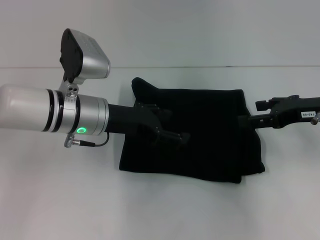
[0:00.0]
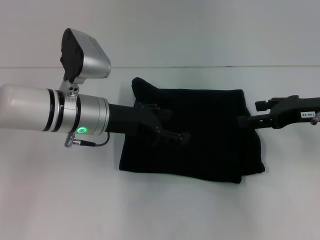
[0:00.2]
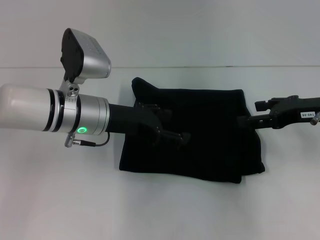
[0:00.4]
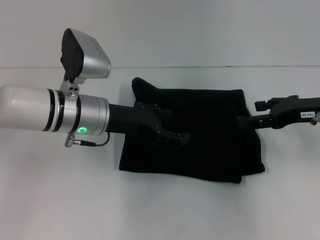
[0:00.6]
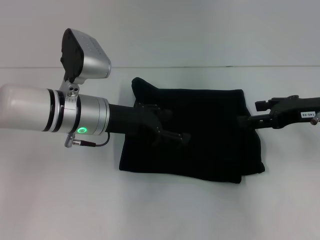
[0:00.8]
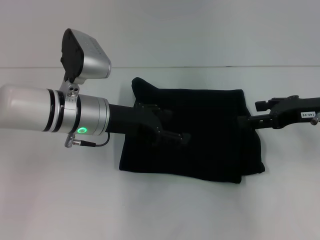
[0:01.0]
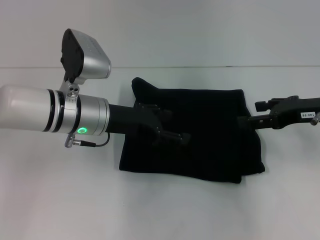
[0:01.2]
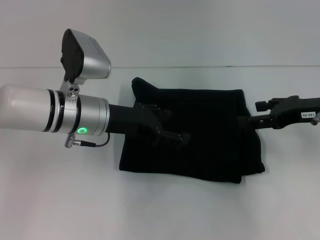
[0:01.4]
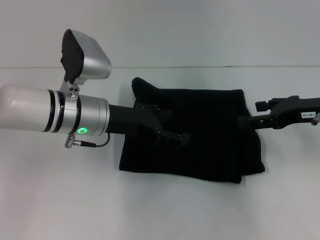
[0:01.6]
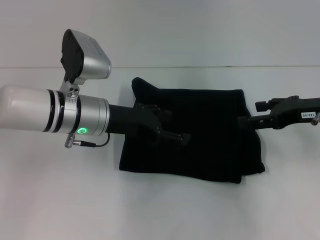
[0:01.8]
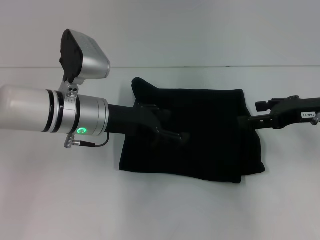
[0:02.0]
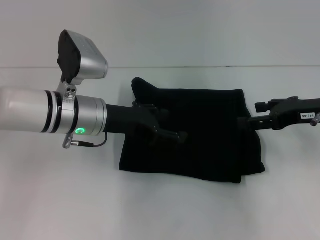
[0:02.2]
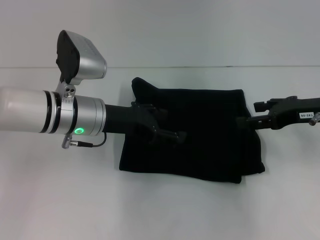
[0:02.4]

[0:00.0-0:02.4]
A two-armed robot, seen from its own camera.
0:00.0 to 0:02.4: Both grippers stay put.

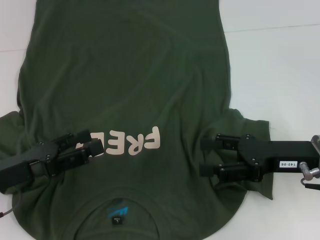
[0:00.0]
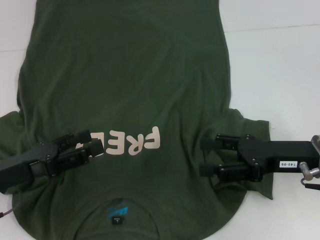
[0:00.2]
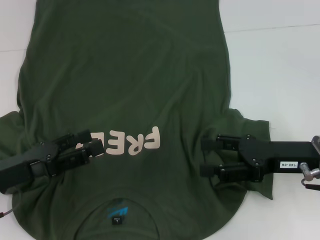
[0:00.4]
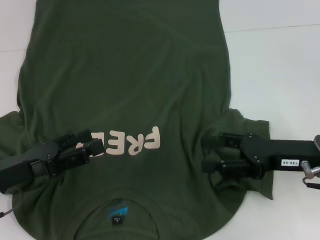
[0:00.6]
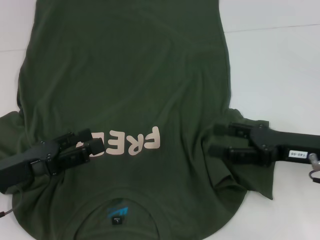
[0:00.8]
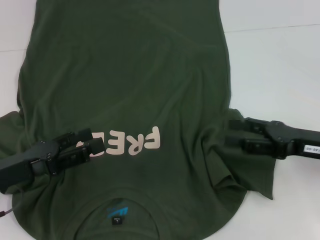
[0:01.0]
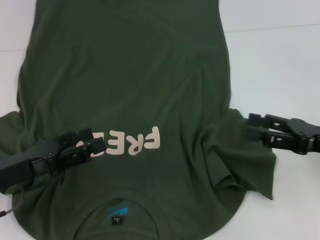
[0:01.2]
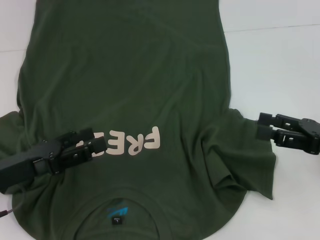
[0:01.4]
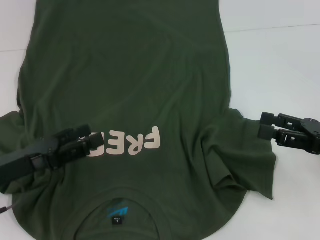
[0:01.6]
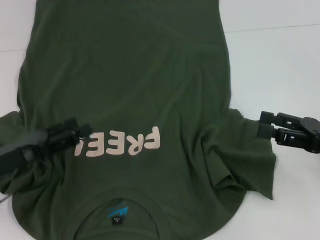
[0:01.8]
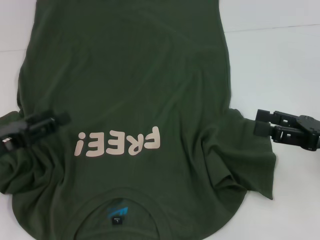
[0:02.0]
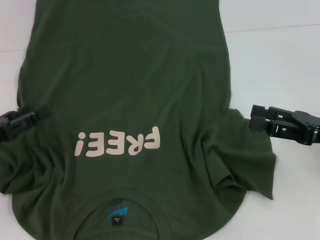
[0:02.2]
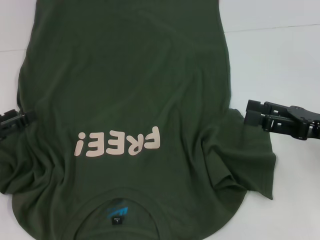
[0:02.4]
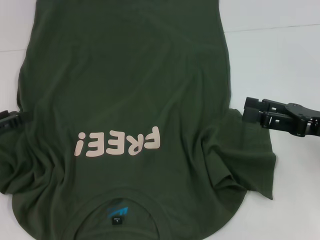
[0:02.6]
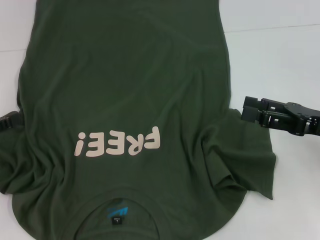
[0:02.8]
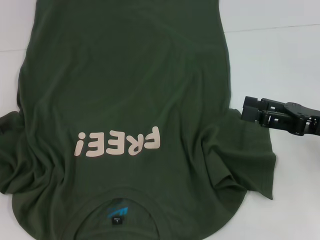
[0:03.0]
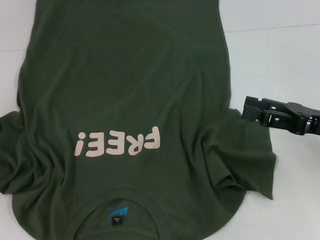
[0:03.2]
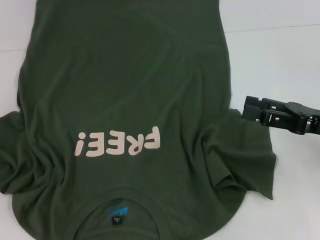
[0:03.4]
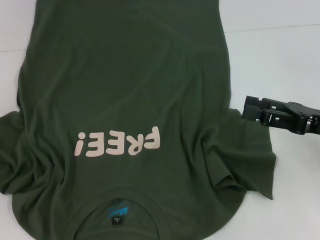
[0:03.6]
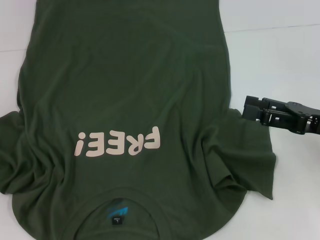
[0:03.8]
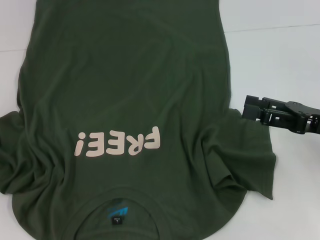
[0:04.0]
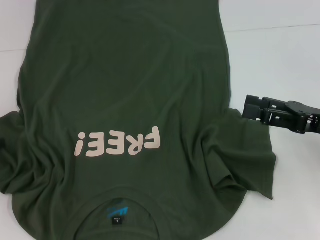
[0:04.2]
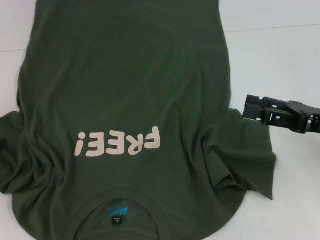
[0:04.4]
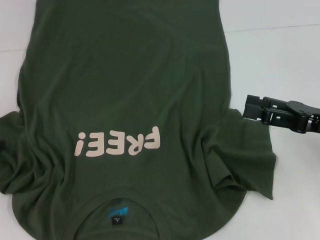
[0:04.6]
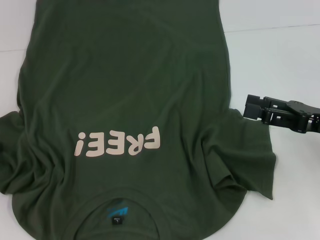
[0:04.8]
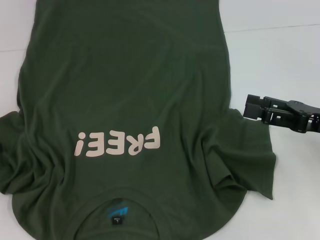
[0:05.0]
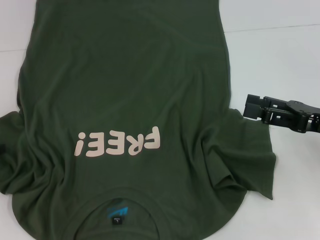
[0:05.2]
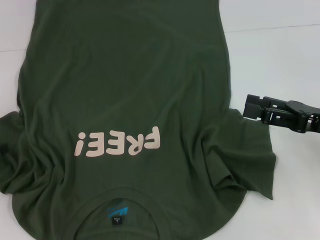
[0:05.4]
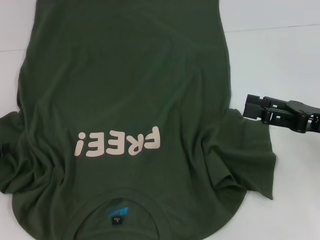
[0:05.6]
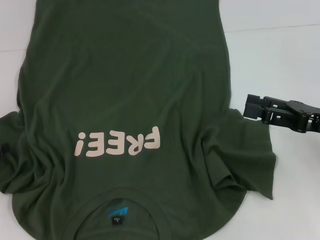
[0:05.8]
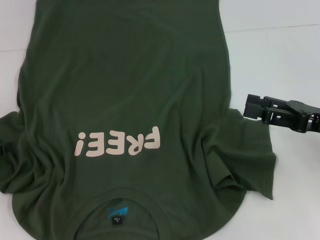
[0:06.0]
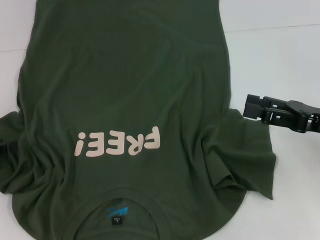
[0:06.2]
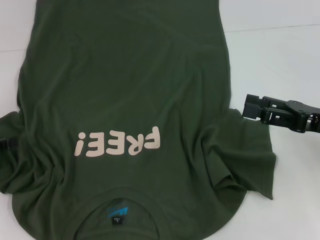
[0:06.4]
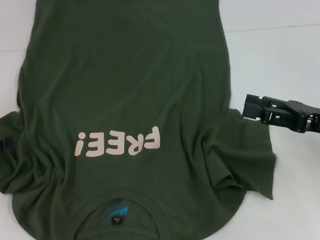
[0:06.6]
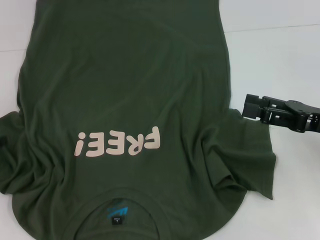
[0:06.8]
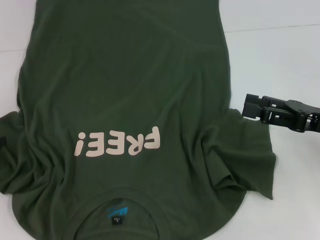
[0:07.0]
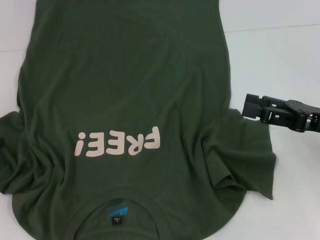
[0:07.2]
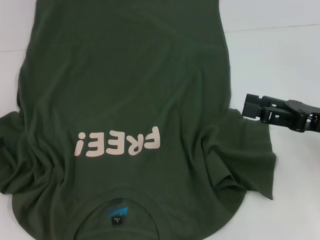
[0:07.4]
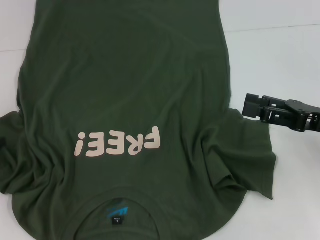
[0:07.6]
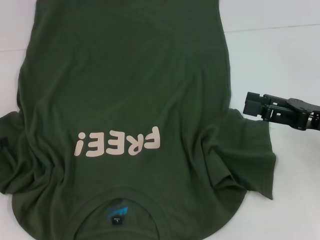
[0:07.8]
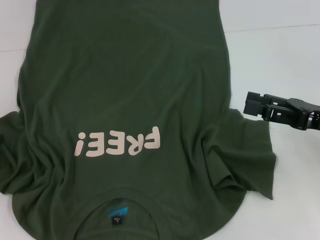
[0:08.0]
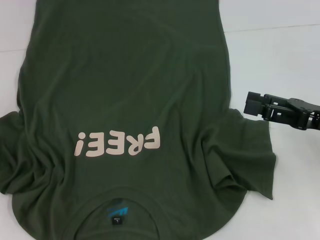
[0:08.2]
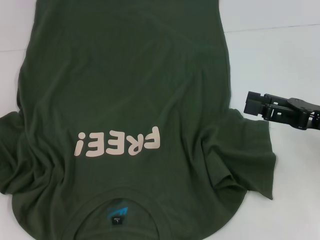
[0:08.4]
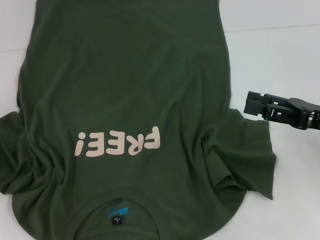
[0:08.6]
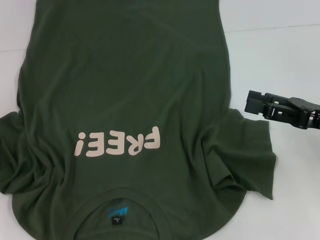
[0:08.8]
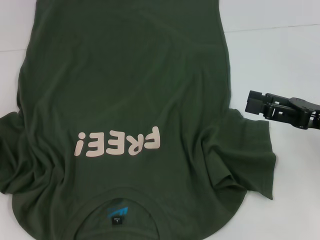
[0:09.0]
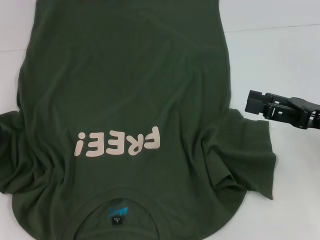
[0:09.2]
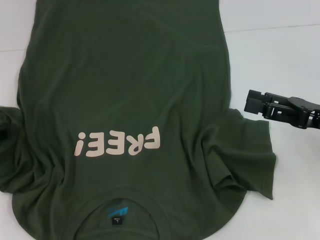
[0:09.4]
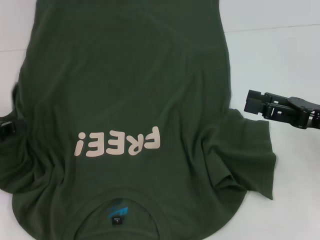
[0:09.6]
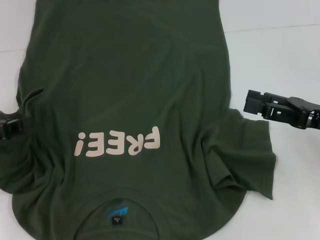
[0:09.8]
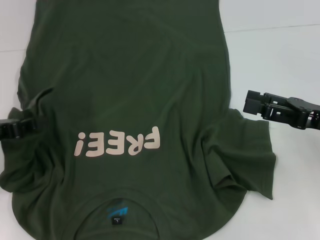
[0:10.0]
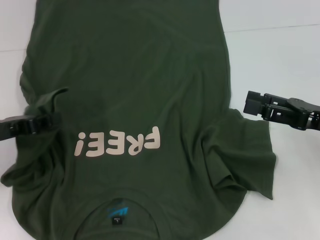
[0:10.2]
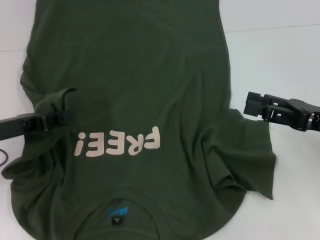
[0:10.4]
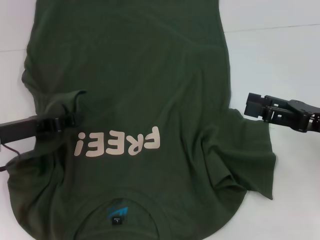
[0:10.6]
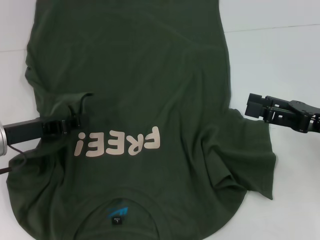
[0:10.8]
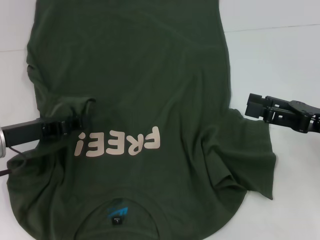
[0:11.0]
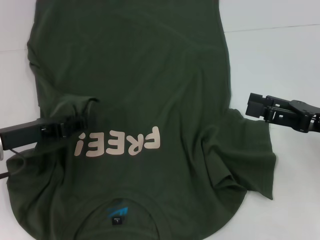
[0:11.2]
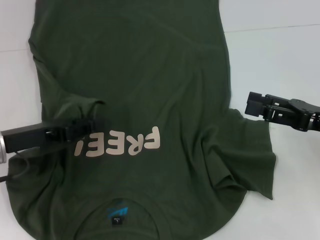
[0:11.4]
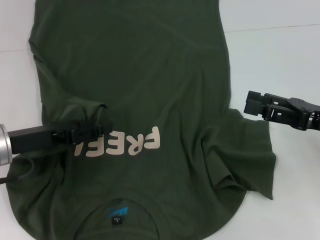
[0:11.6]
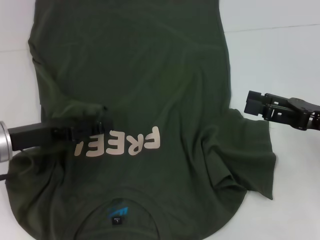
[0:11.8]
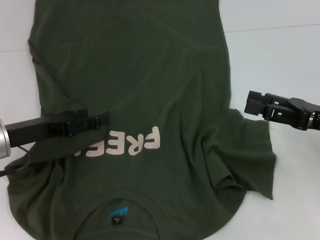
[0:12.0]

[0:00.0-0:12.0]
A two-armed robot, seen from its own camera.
0:00.0 to 0:01.6: The right gripper heads to the right, covering roughly 5 cm.
0:01.6 to 0:03.0: The left gripper heads to the left, covering approximately 10 cm.
0:03.0 to 0:04.4: There are only small adjustments of the grippers.
0:04.4 to 0:06.0: Neither gripper changes place.
0:06.0 to 0:07.6: Both grippers stay put.
0:09.0 to 0:10.4: The left gripper goes roughly 10 cm to the right.
0:10.4 to 0:12.0: The left gripper opens its fingers.

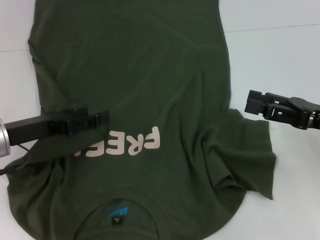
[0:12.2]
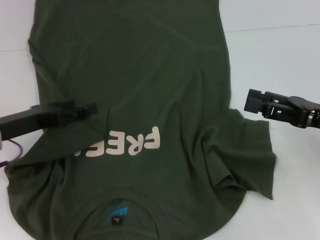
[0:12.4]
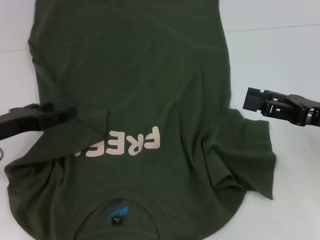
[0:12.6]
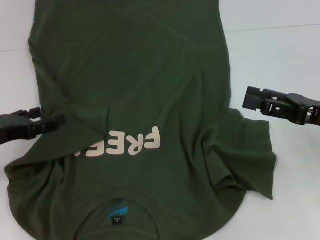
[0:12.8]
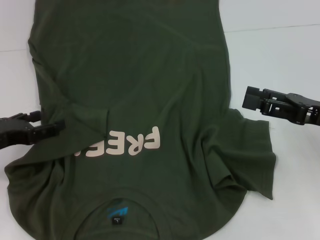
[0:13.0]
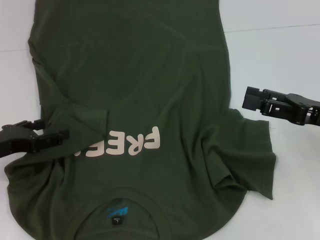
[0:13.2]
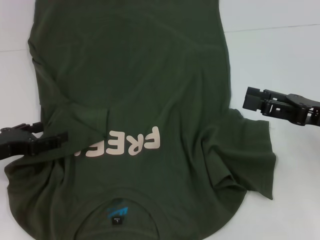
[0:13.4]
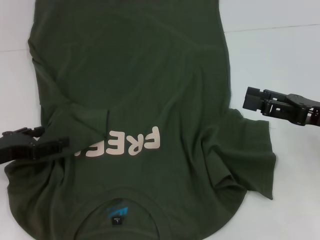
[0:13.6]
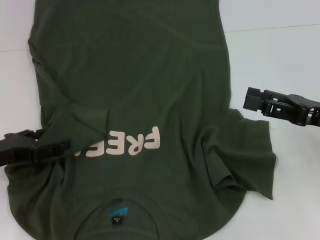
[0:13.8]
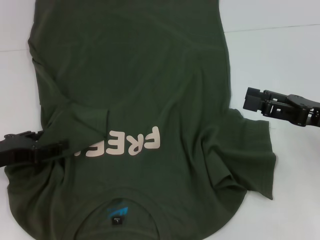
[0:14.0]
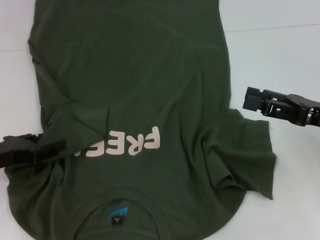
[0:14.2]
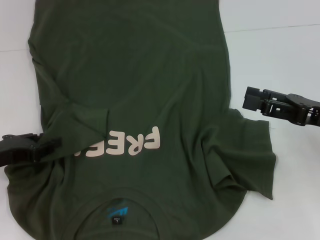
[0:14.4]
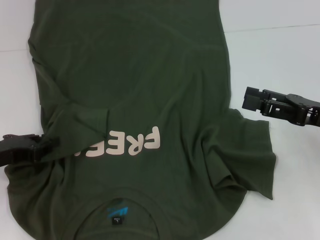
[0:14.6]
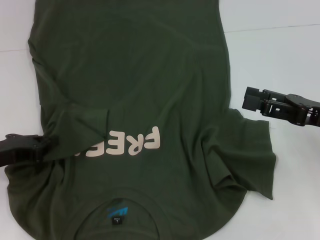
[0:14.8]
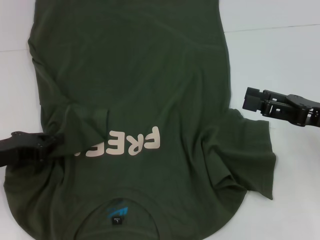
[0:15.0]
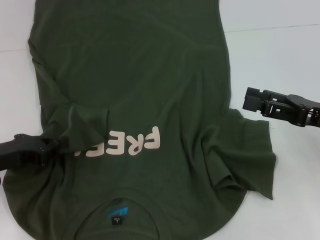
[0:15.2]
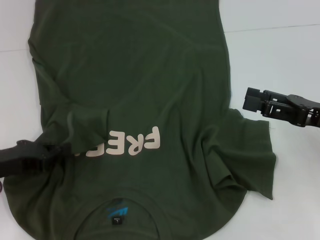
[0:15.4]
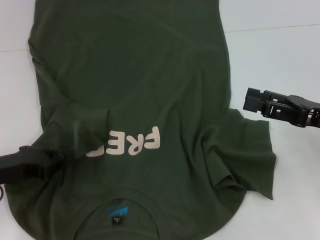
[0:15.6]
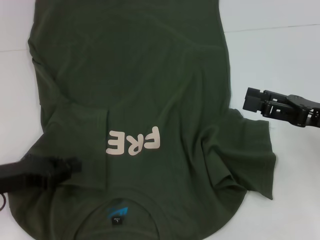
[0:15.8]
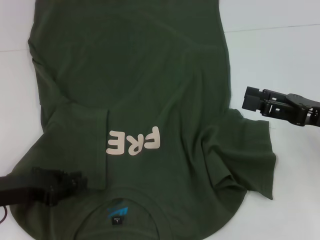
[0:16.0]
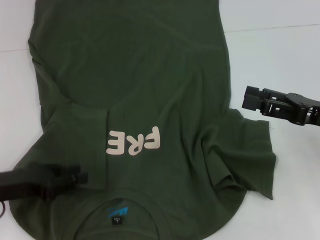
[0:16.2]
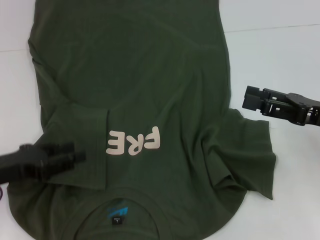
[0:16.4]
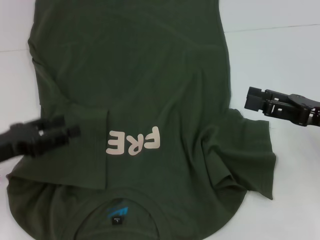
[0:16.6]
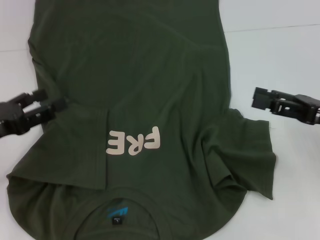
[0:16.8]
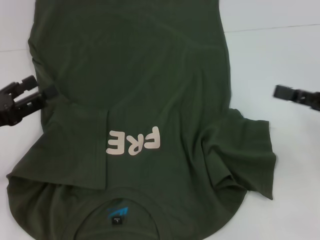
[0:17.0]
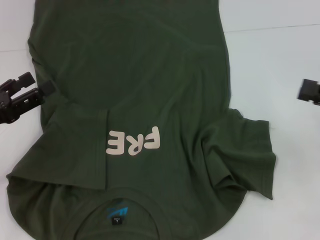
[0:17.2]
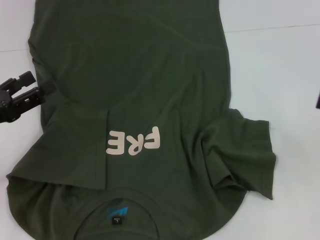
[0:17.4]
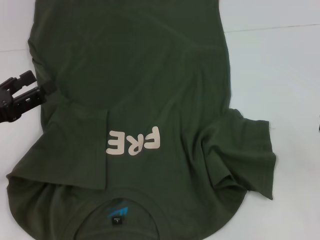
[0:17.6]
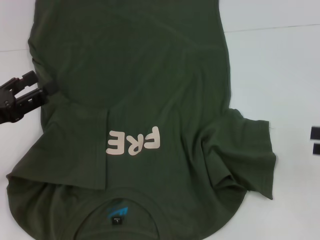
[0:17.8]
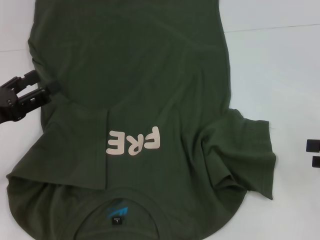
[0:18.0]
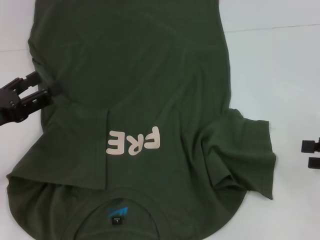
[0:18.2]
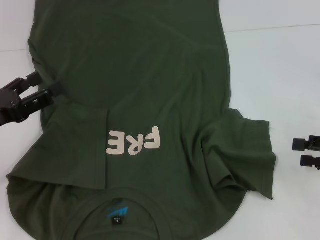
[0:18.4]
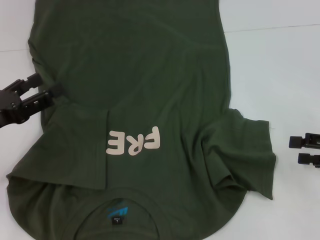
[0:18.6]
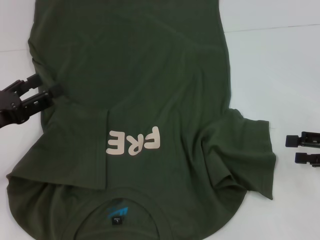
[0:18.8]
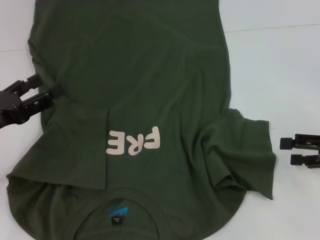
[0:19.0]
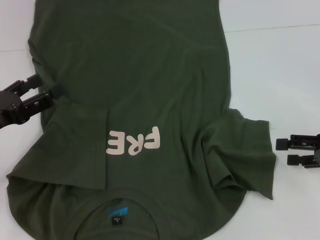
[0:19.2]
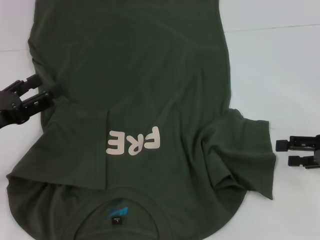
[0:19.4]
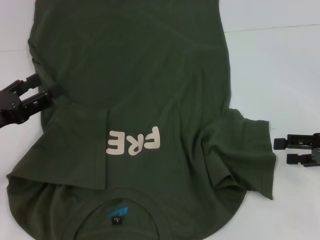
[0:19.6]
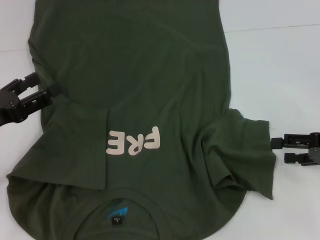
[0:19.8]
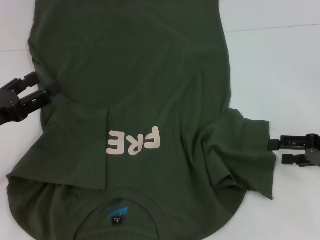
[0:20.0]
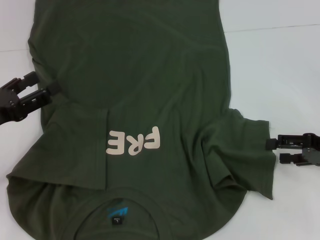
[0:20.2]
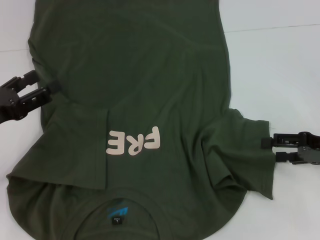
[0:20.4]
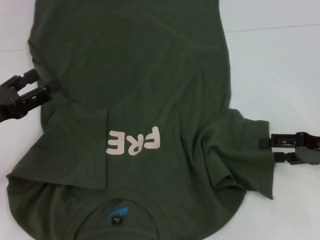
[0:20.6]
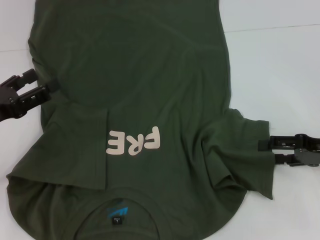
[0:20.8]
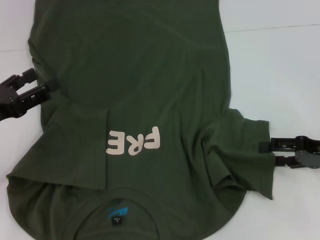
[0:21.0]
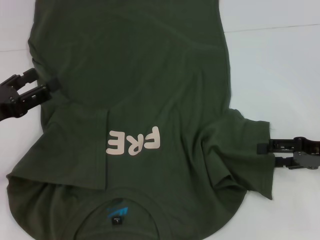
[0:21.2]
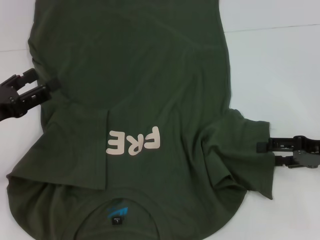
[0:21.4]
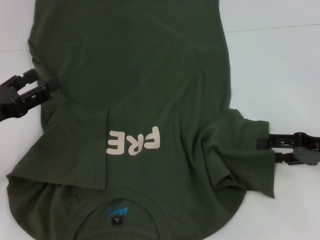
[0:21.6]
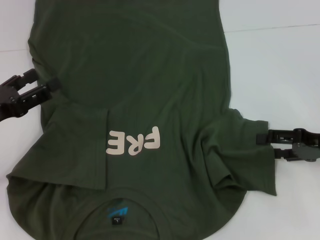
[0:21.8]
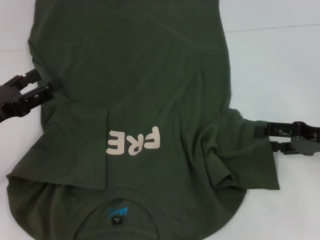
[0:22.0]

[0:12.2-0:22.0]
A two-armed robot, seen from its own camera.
Step, 0:12.2 to 0:16.0: Fold the bottom left sleeve with your left hand.
0:12.2 to 0:13.6: The left gripper moves some 5 cm.
0:13.6 to 0:15.0: The left gripper closes up.
0:15.0 to 0:16.4: The left gripper opens.
0:16.4 to 0:17.8: The left gripper opens its fingers. The right gripper travels to the right by approximately 10 cm.
0:17.8 to 0:19.2: The right gripper shifts by about 5 cm.
0:19.2 to 0:20.6: The grippers stay close to where they were, moving slightly.
0:20.6 to 0:22.0: The two grippers keep their place.
